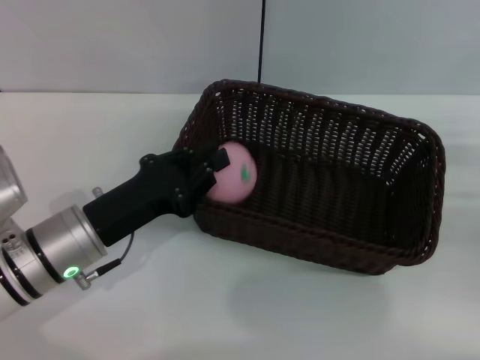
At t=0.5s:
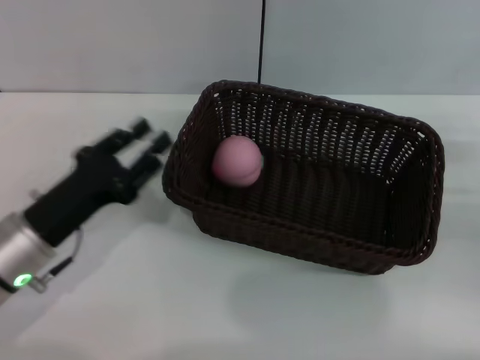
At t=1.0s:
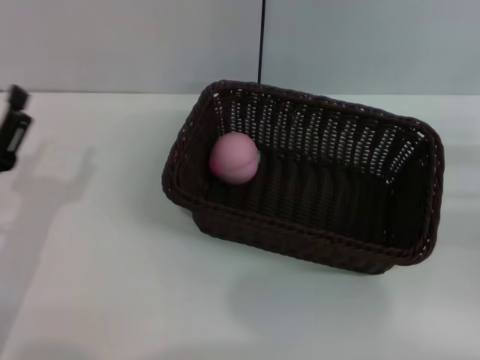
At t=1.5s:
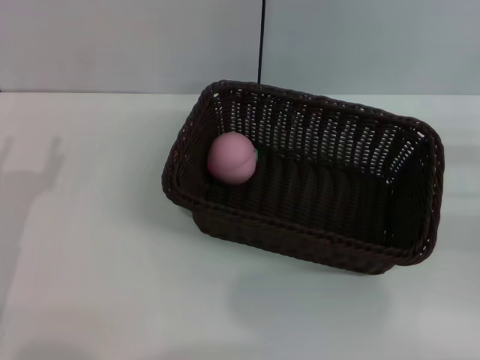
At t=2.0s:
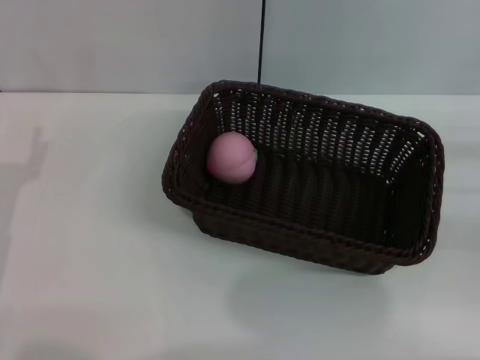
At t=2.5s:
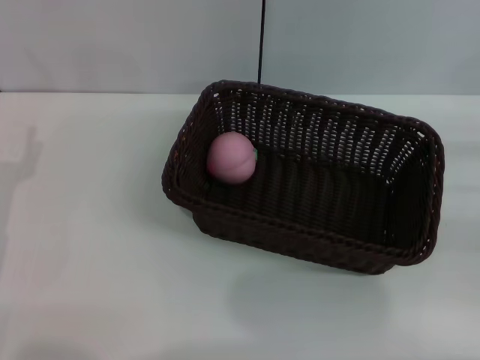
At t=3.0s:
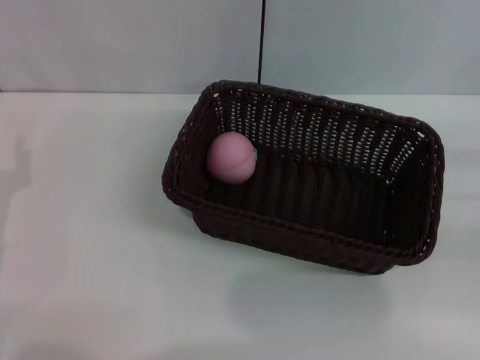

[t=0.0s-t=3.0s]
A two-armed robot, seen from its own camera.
t=0.0s to t=1.5s: The left gripper goes about 10 cm to the left, and opens.
